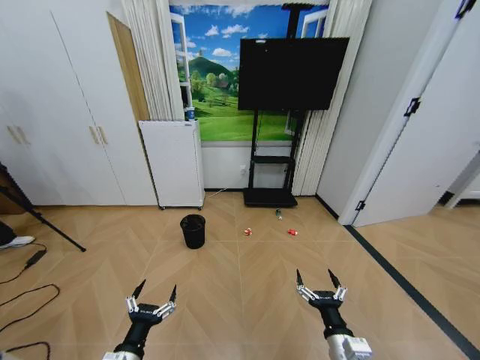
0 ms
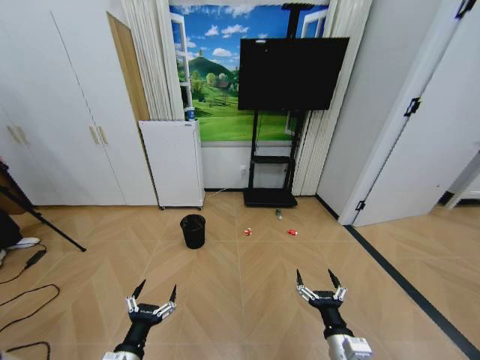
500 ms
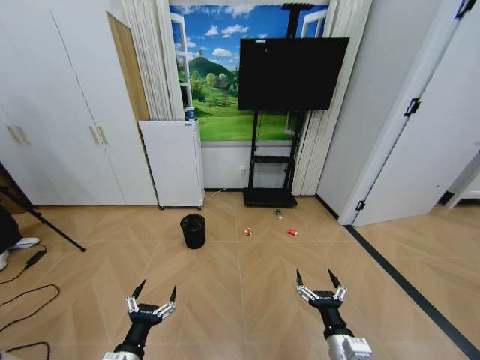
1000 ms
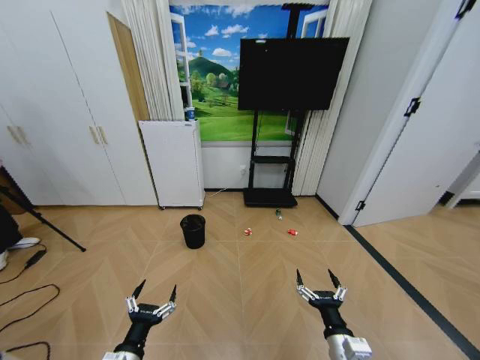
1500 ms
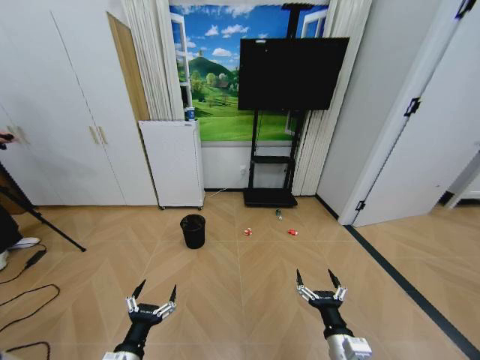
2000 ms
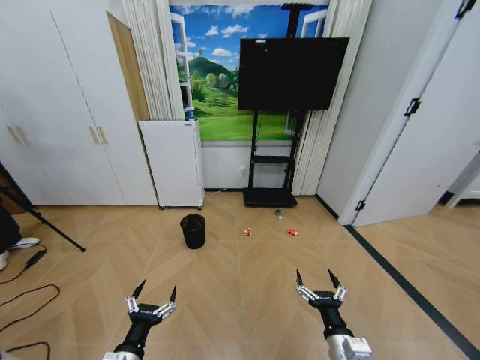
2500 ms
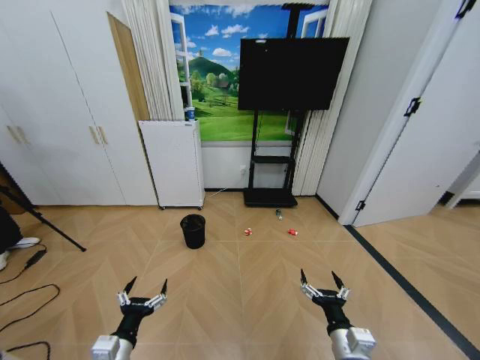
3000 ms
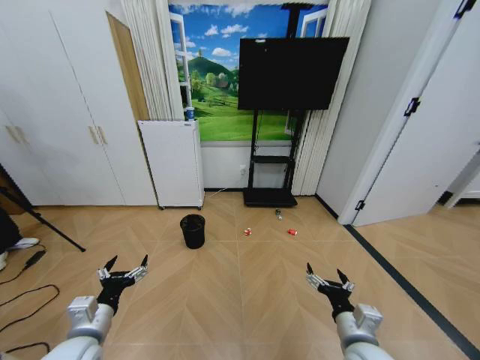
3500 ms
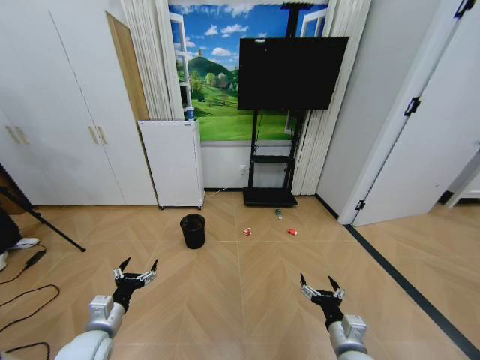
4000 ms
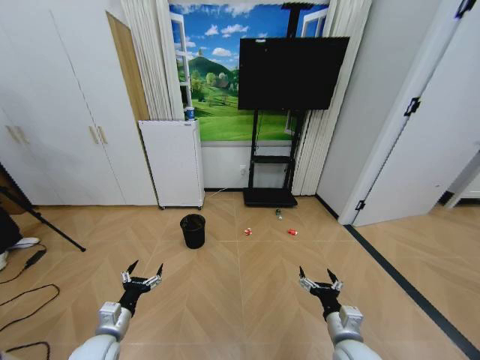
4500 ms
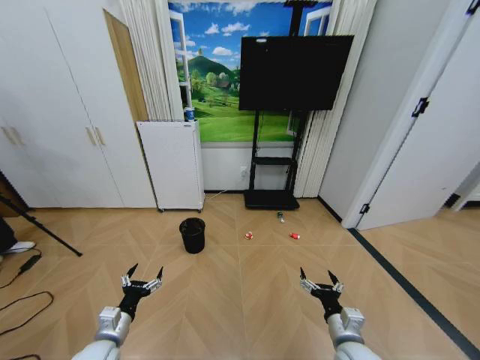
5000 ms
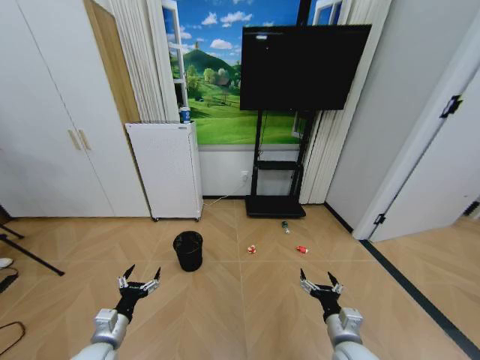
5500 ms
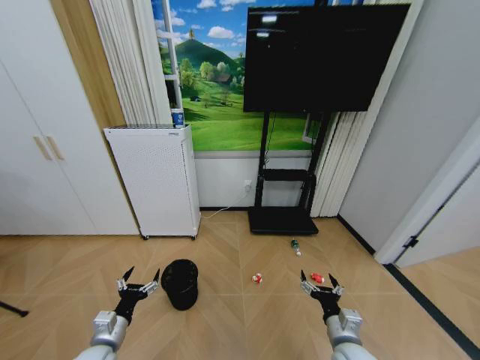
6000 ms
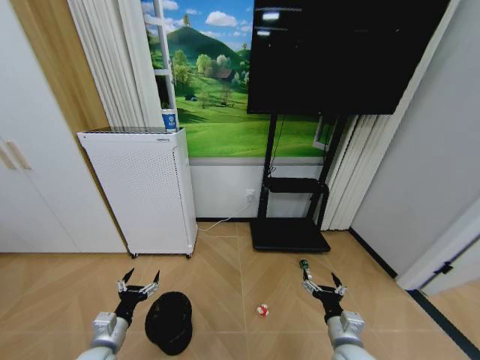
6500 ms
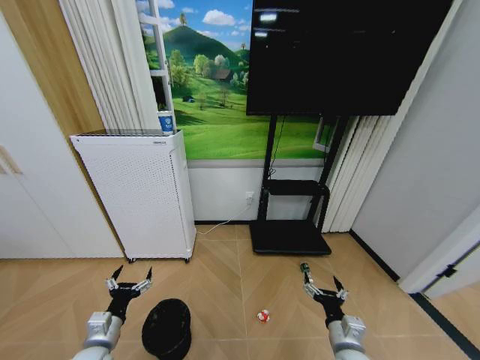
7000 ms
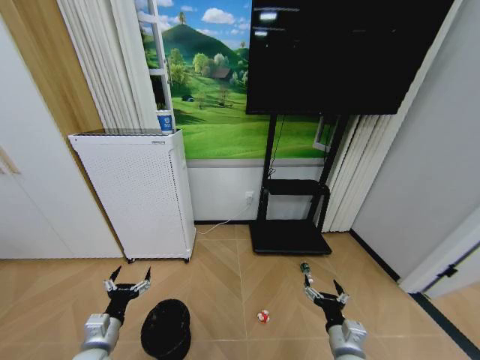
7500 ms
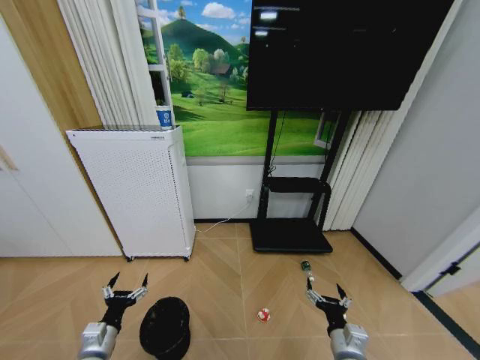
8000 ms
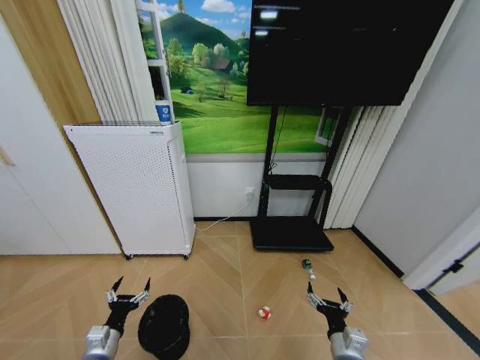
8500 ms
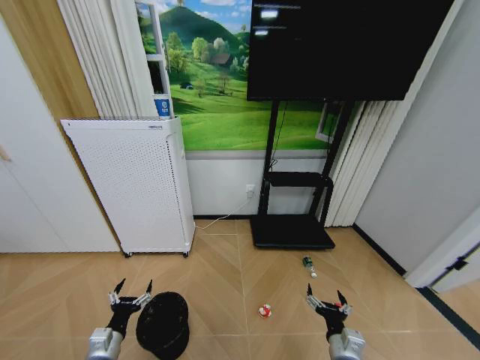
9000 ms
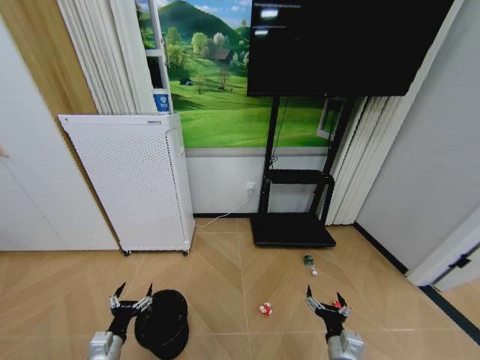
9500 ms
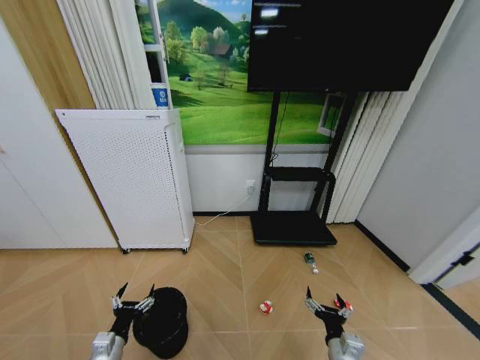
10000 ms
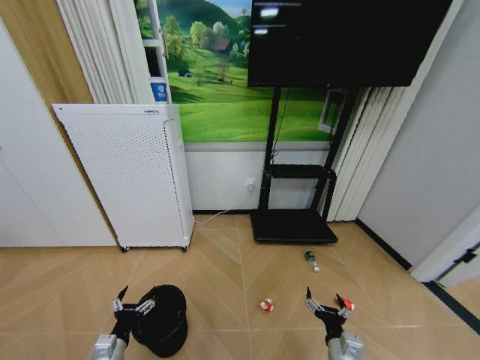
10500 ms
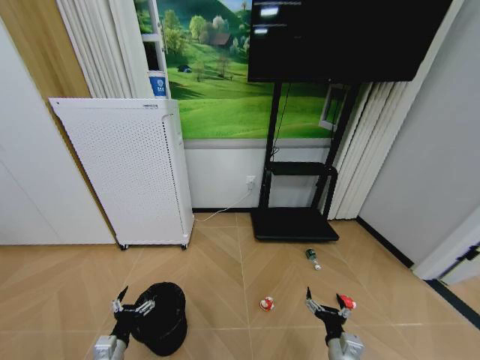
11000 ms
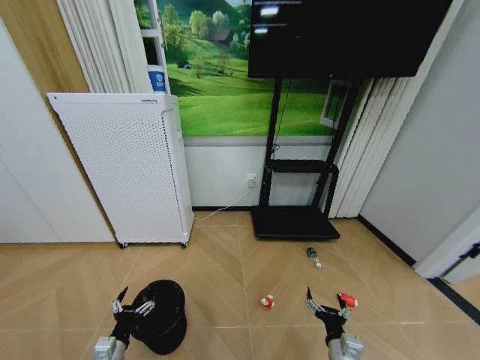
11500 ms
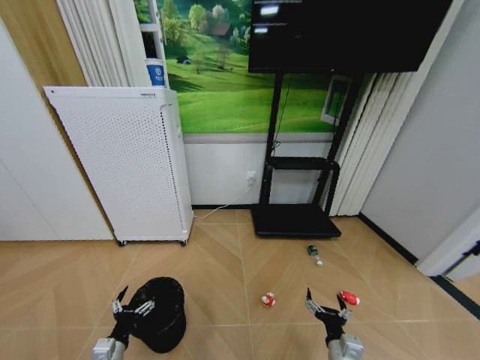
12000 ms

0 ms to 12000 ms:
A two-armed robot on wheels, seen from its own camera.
Task of the whole recording: Pick up the trash bin and place the garbage on the floor into it.
2000 ms to 4000 ms: The left gripper moves forward and to the left, about 15 cm.
8000 ms to 10000 ms: The grippers stay close to where they were, moving slightly.
10000 ms to 12000 ms: The two grippers keep their place.

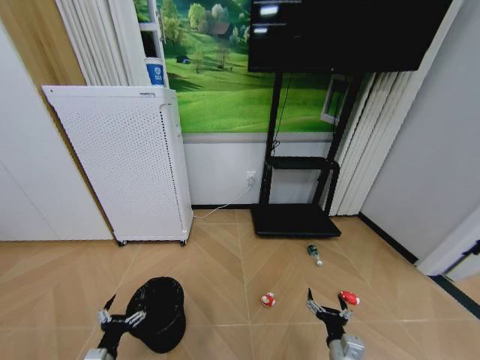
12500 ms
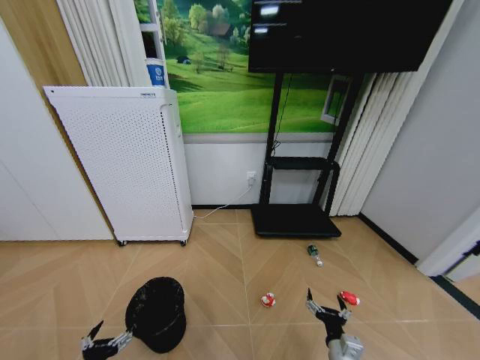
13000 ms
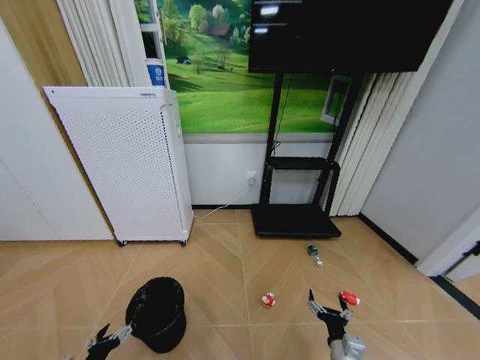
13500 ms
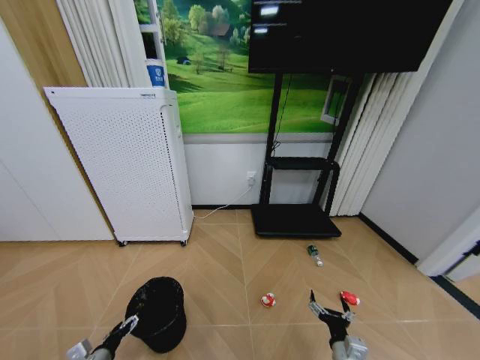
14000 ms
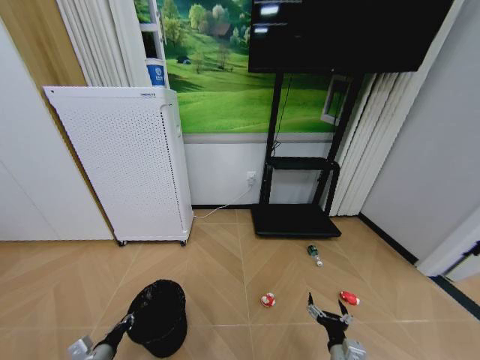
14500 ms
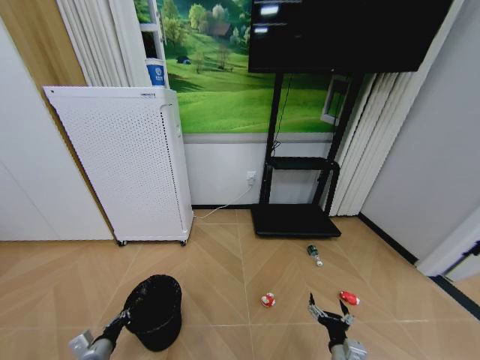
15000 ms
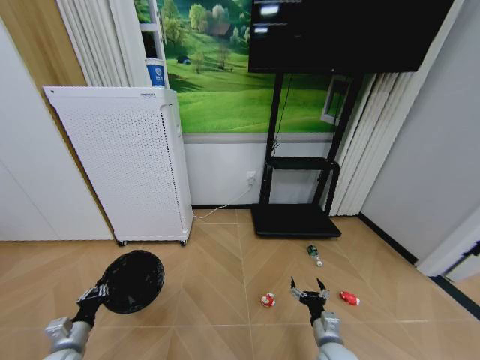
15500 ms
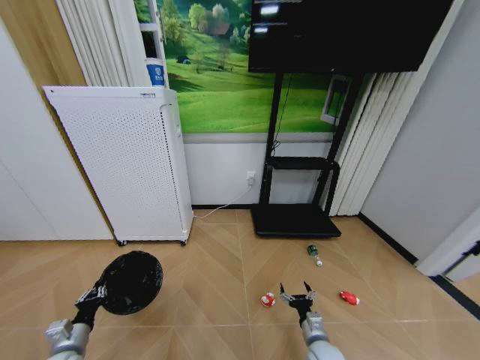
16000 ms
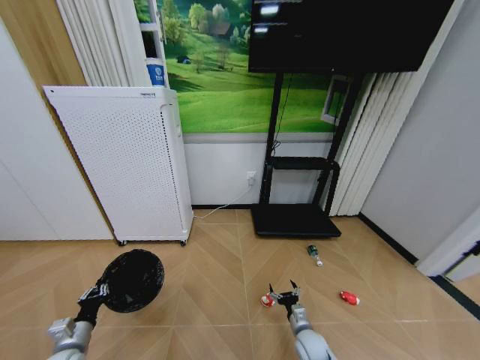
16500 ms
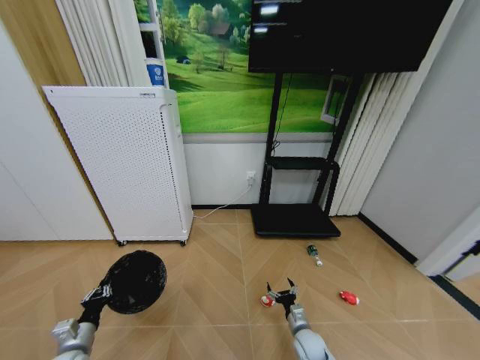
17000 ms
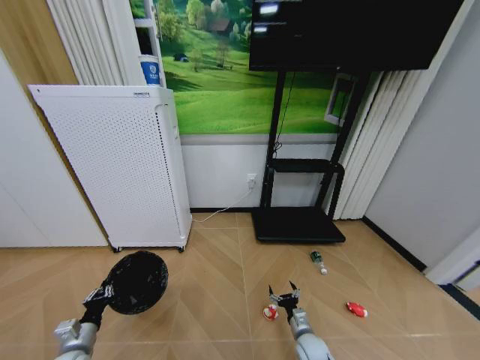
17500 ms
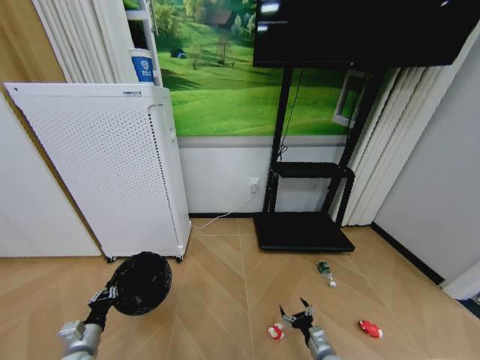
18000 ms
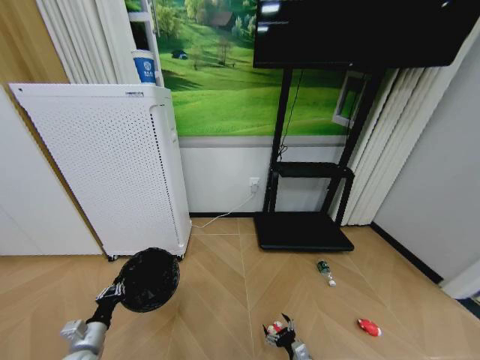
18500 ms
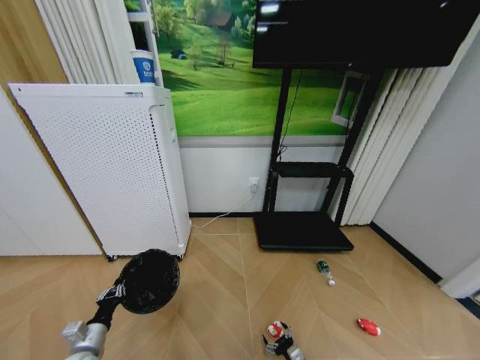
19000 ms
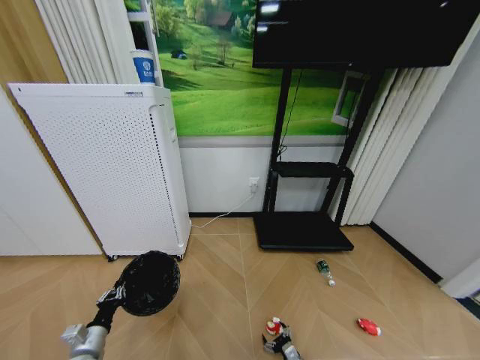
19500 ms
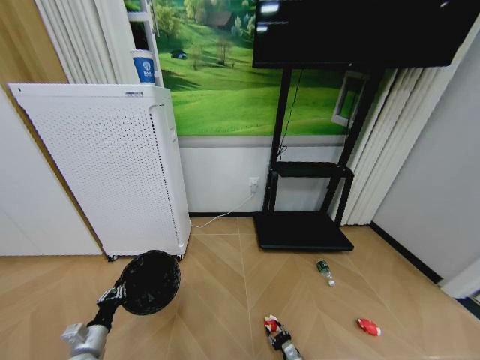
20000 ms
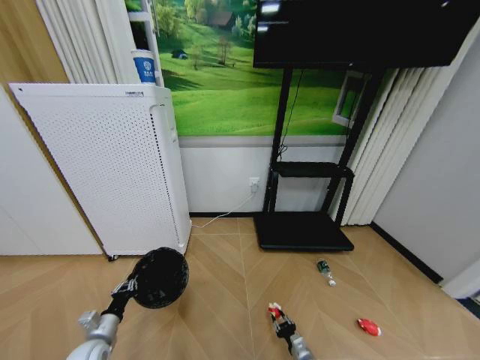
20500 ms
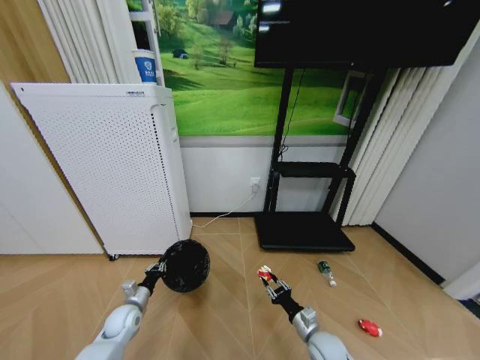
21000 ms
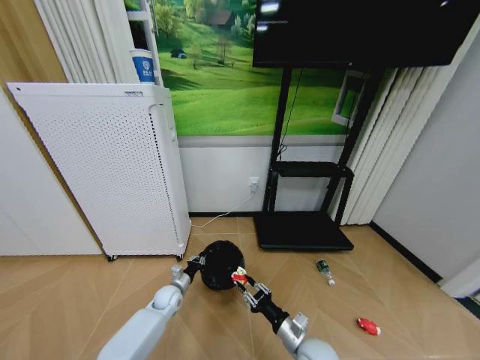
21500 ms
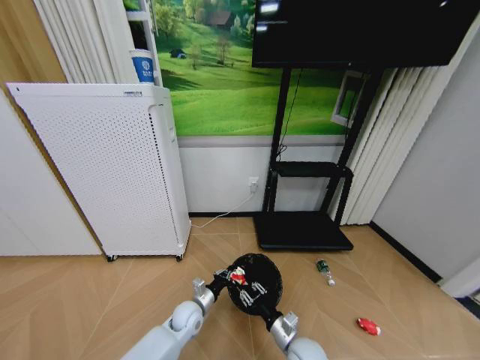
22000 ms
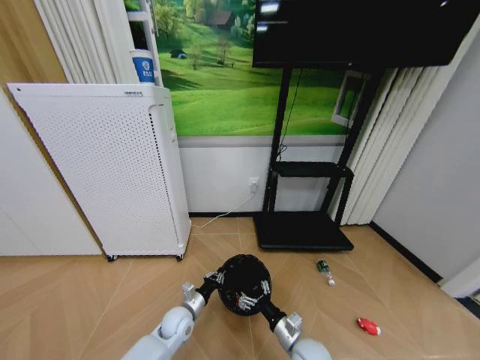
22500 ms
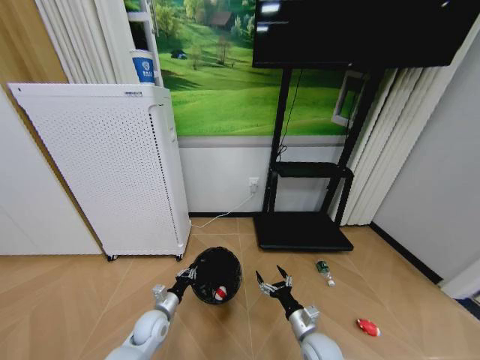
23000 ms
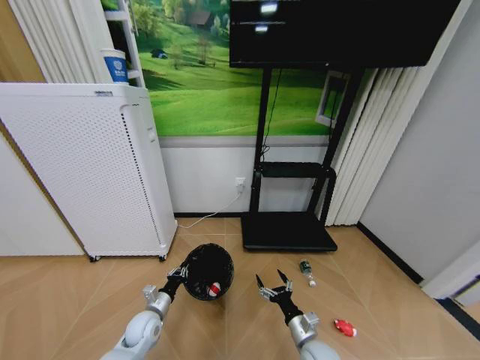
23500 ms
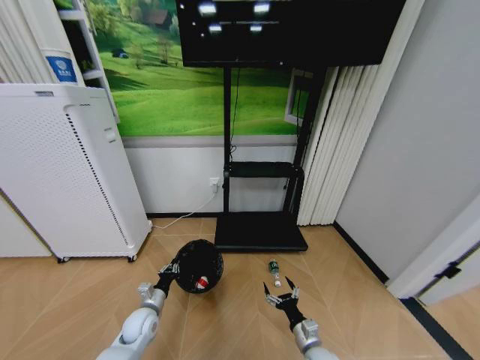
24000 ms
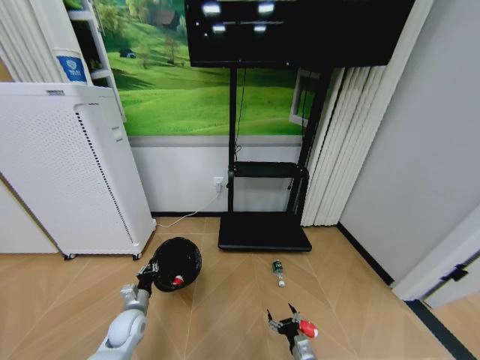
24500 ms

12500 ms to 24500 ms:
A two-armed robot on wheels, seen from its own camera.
Task of the whole recording: Pick up the trash bin and place the garbage on the floor into it.
12500 ms to 14500 ms: The left gripper shifts some 5 cm forward, and closes.
14500 ms to 16500 ms: The left gripper shifts by about 5 cm. The right gripper shifts approximately 15 cm forward and downward.
16500 ms to 18500 ms: The right gripper heads backward, covering roughly 10 cm.
18500 ms to 20500 ms: The right gripper closes its fingers.
20500 ms to 22500 ms: The right gripper heads upward and to the left, covering some 20 cm, and opens its fingers, while the left gripper is displaced to the right by about 20 cm.
22500 ms to 24500 ms: The left gripper travels to the left by approximately 15 cm. Meanwhile the right gripper is displaced downward by about 15 cm.

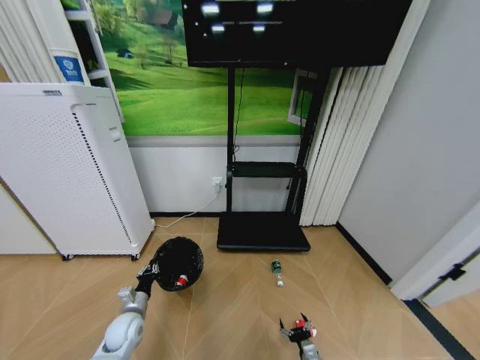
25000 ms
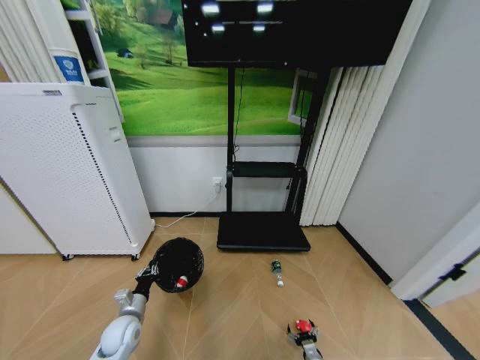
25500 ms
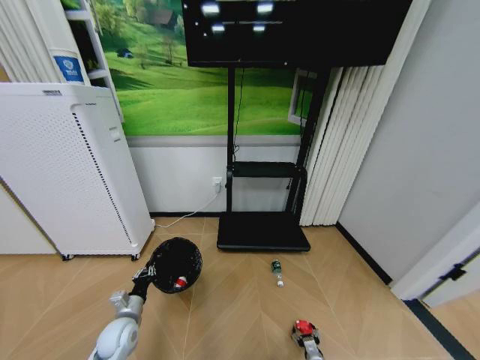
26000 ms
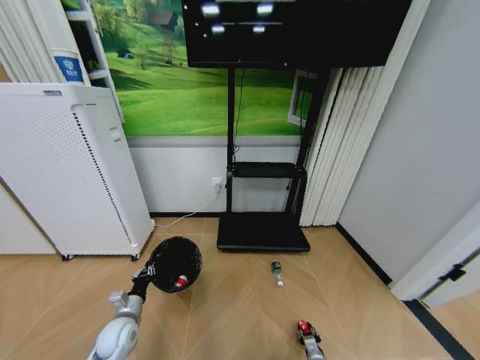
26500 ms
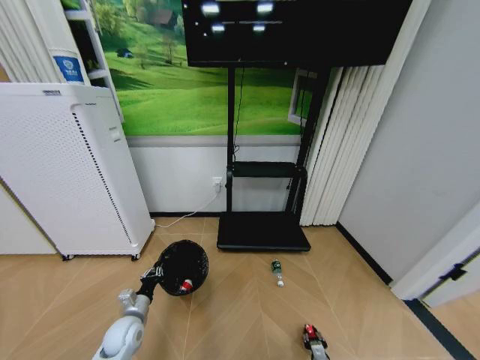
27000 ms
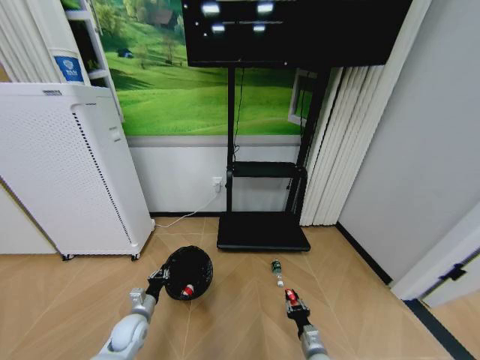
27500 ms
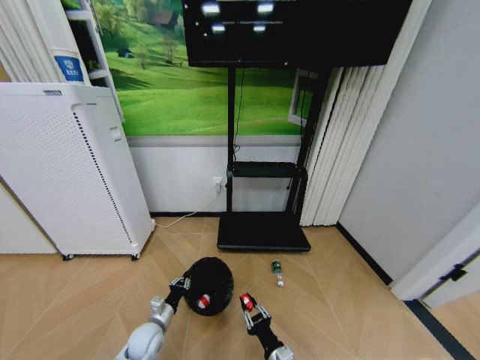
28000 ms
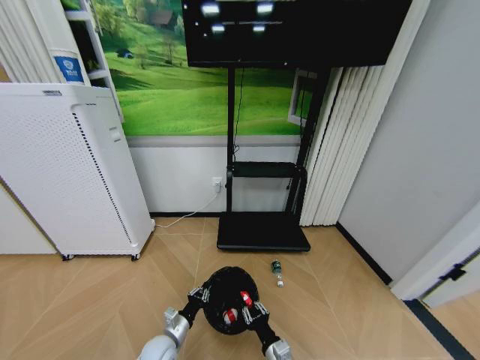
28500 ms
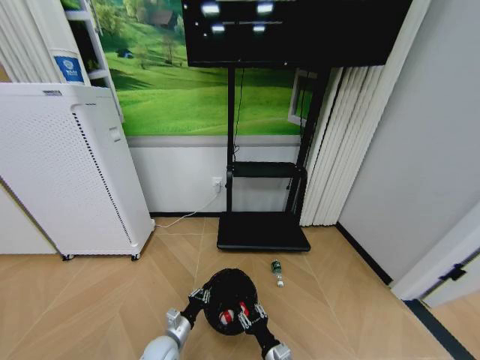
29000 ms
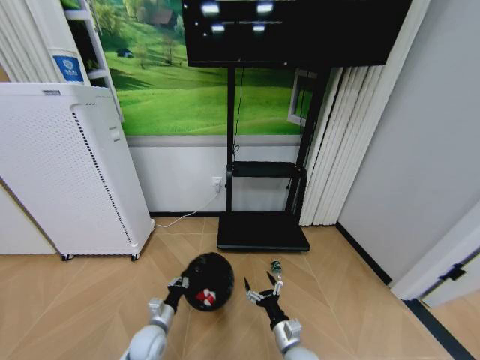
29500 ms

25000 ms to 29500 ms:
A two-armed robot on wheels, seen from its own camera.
Task of the whole recording: Pick up the trash bin and place the garbage on the floor into it.
25000 ms to 27000 ms: The right gripper ends up some 5 cm from where it was, and closes.
27000 ms to 29500 ms: The right gripper goes some 25 cm upward and to the left, and opens its fingers. The left gripper heads to the right, covering about 10 cm.
